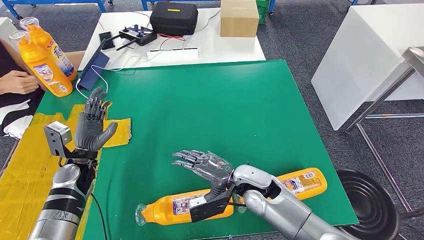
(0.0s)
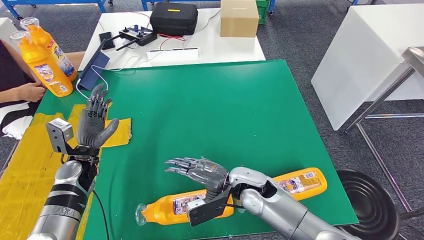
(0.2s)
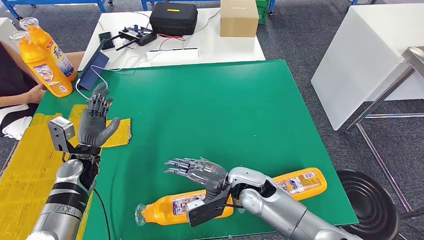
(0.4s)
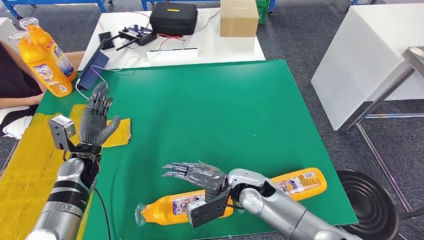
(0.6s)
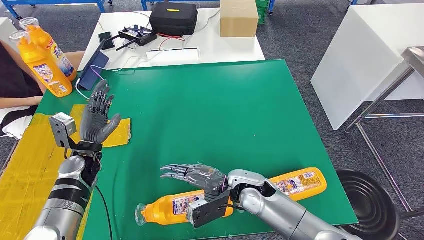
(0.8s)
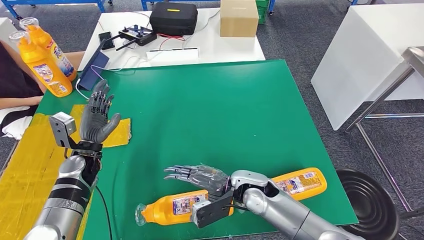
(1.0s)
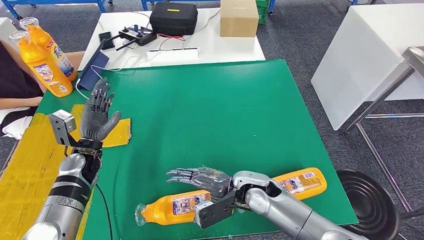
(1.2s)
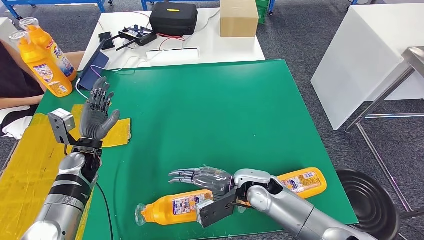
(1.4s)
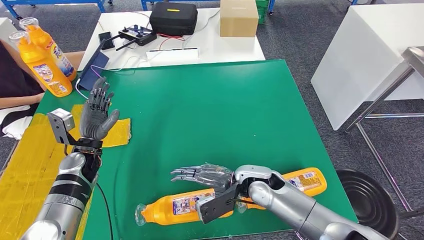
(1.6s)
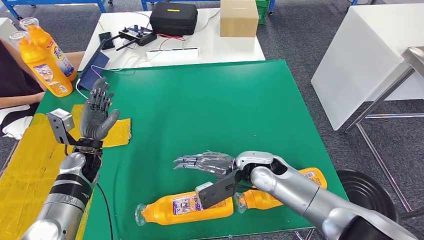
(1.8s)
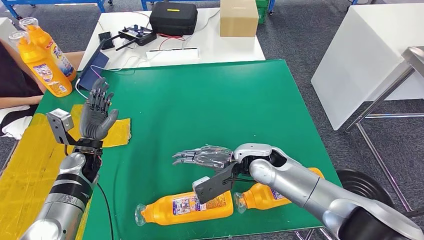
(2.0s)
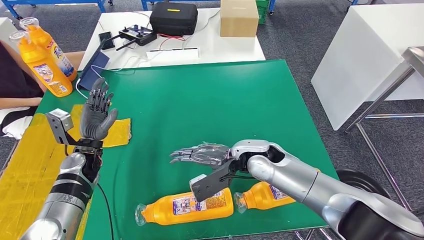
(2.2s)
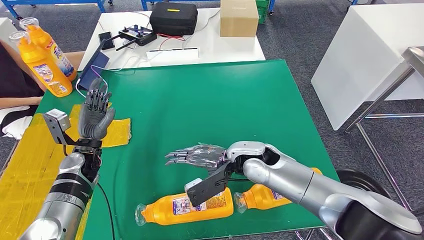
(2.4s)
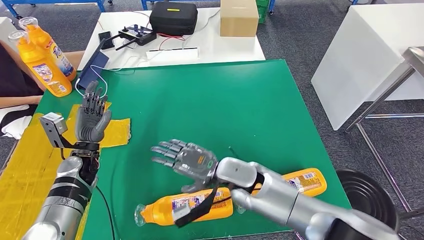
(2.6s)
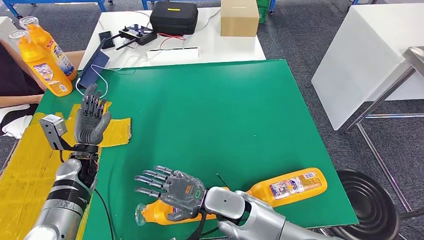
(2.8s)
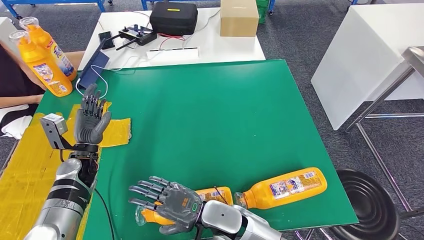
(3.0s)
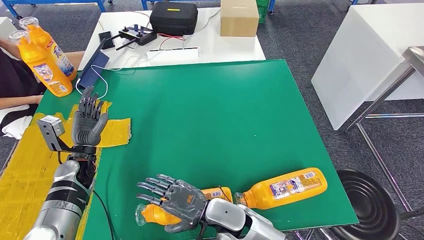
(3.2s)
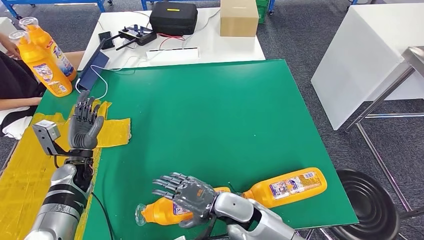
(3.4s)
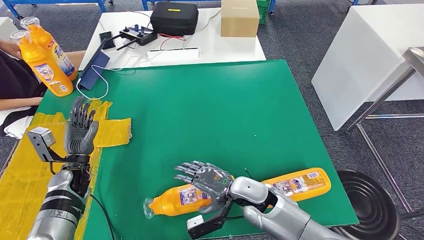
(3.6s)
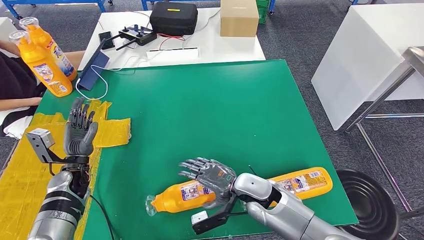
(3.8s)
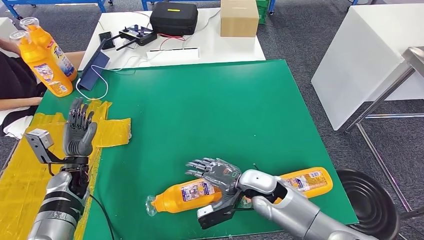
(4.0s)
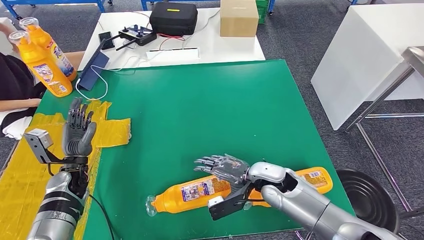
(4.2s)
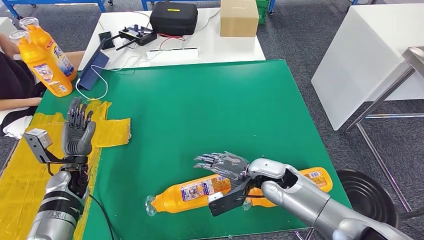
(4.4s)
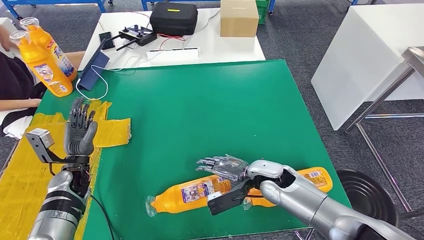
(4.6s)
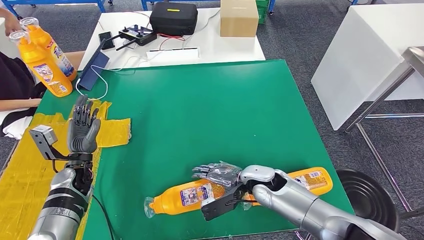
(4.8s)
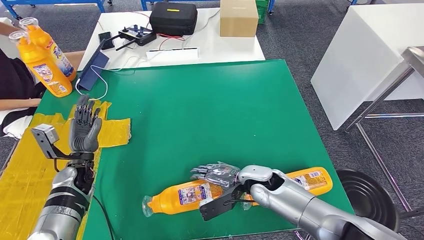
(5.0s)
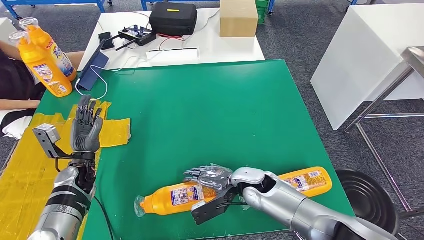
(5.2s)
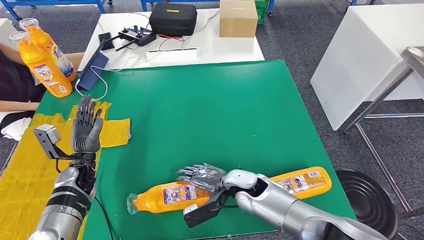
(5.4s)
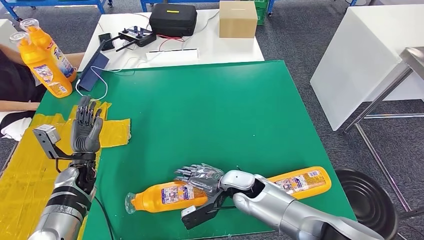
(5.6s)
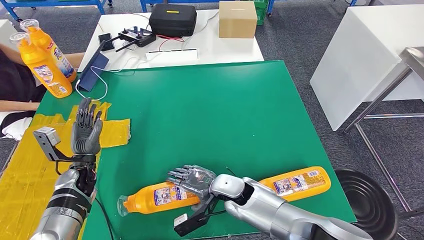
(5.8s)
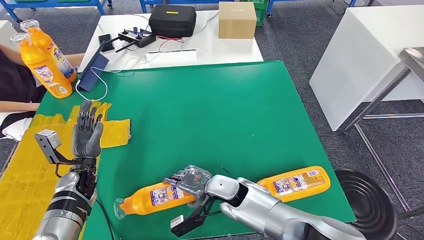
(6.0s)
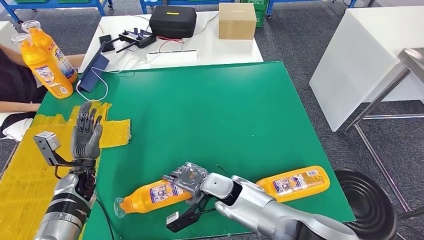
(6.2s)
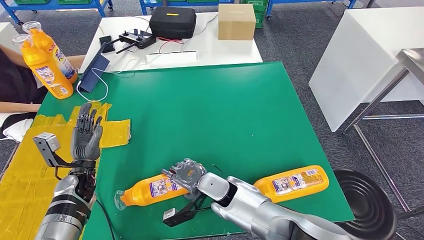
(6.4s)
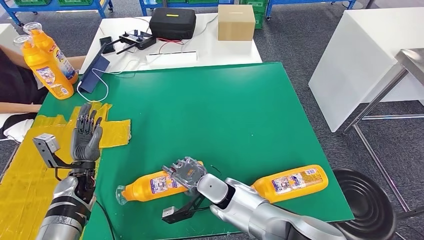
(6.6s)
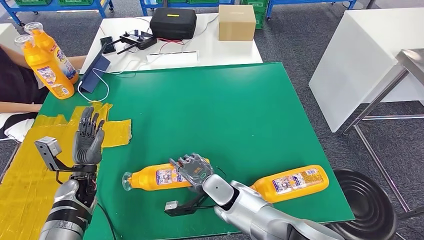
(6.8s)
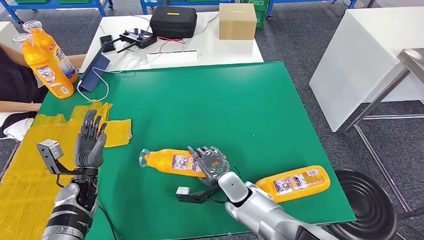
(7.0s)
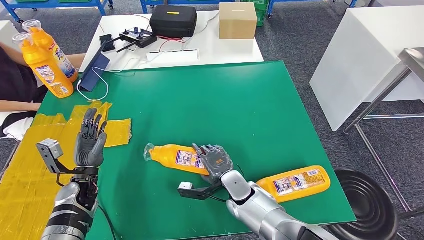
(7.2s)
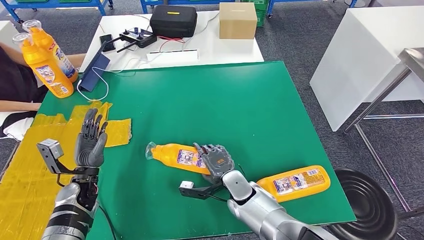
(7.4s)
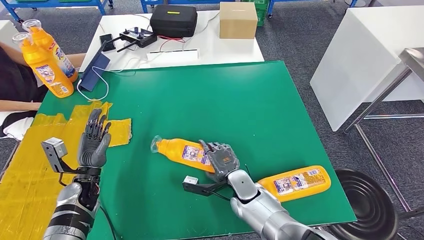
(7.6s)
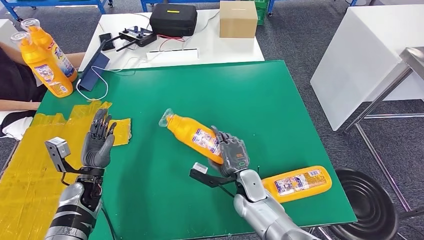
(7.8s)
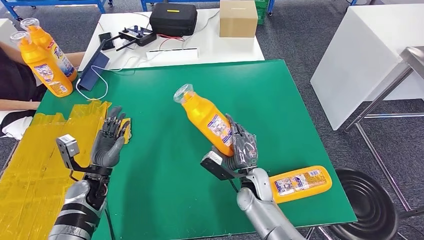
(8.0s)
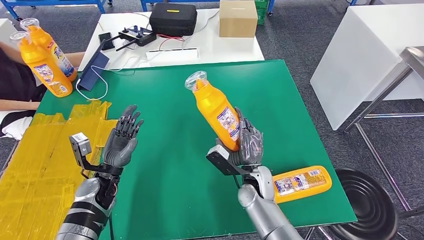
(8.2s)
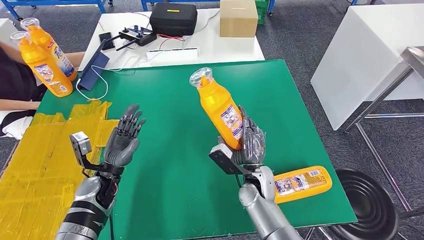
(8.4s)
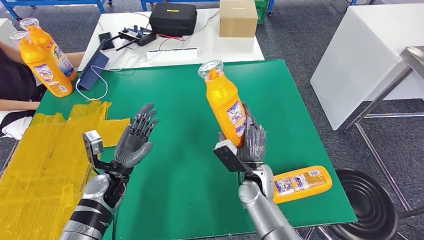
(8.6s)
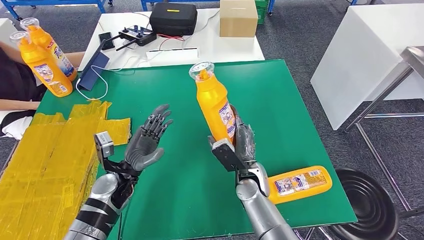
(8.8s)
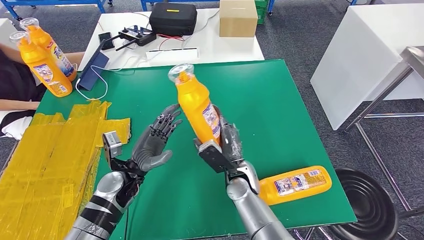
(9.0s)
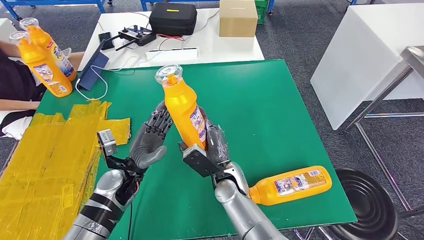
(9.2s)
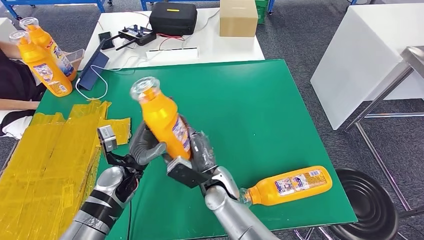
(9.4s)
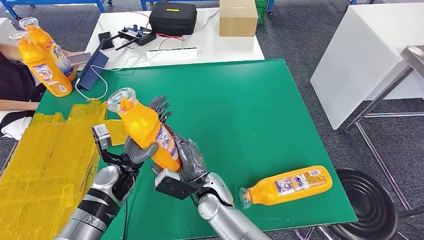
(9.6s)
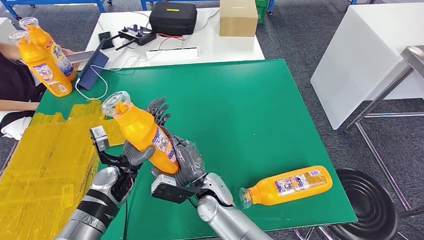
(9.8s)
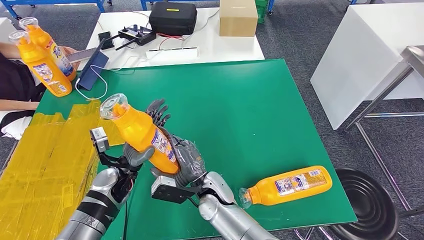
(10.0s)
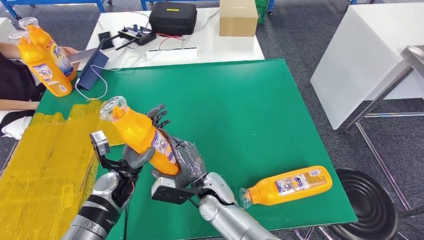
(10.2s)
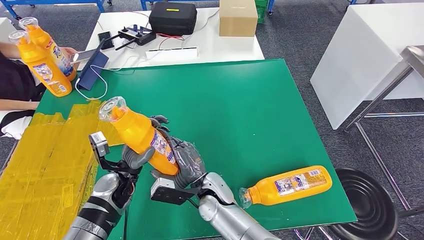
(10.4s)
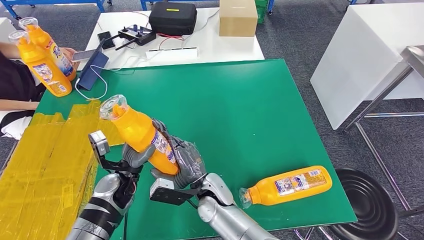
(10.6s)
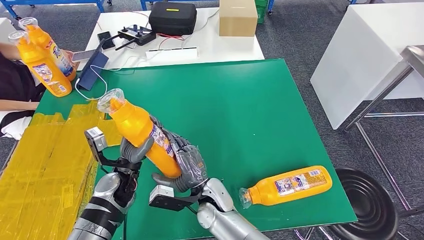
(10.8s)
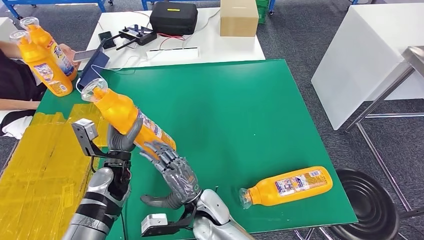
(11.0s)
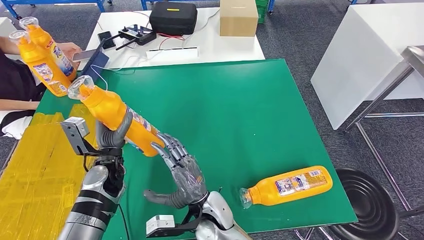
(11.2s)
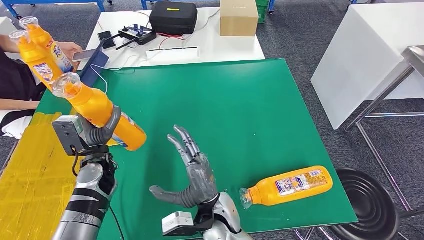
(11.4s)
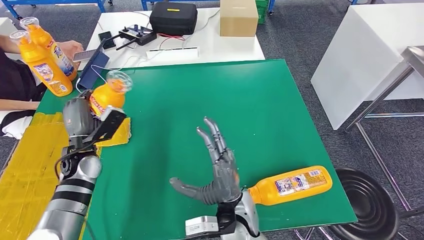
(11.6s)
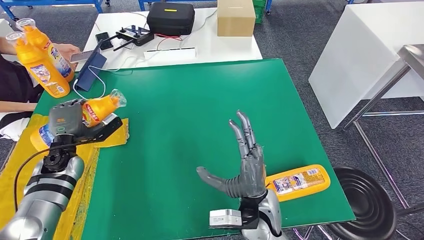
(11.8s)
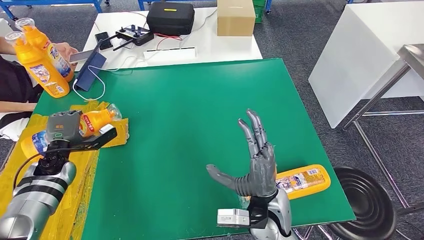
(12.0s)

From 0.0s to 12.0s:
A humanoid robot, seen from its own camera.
Step, from 3.0s to 9.0s: Pick up the fast-moving consumer goods bottle from the table.
From 1.6s to 3.0s: The right hand goes some 10 cm to the left and backward.
From 3.0s to 4.4s: The right hand goes roughly 15 cm to the right and forward.
From 6.0s to 7.6s: The right hand shifts by roughly 5 cm.
From 9.0s to 10.4s: The right hand is displaced to the left and backward by about 10 cm.

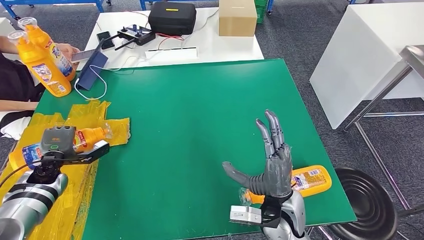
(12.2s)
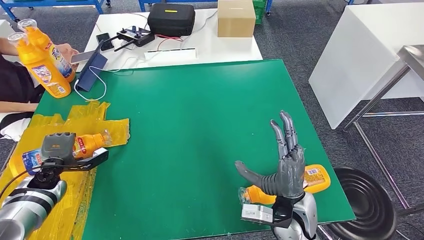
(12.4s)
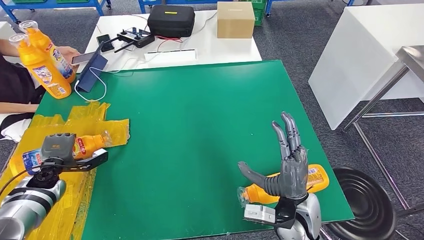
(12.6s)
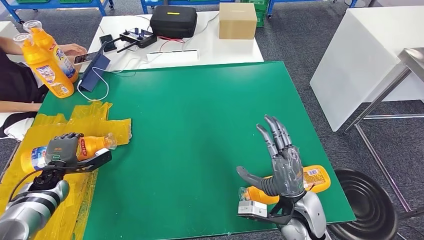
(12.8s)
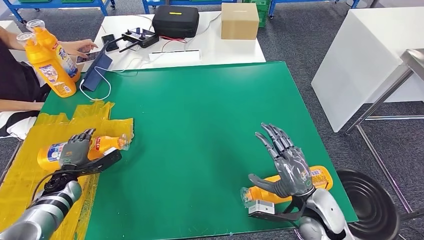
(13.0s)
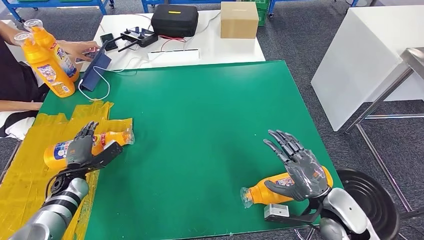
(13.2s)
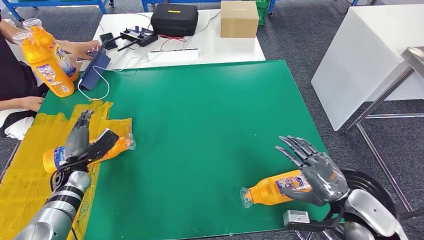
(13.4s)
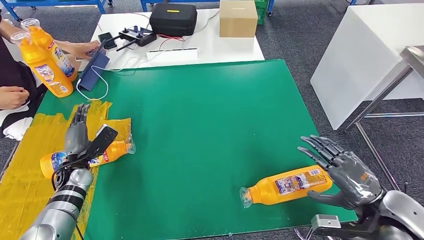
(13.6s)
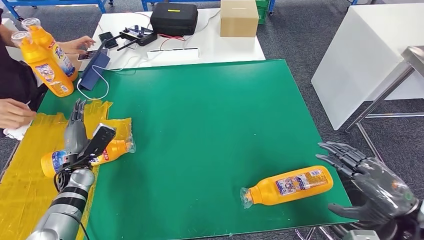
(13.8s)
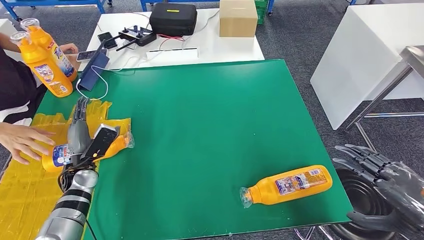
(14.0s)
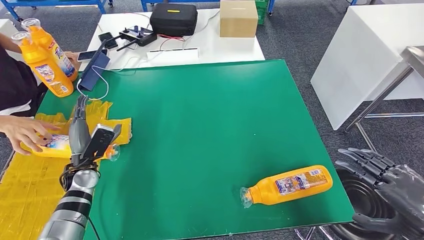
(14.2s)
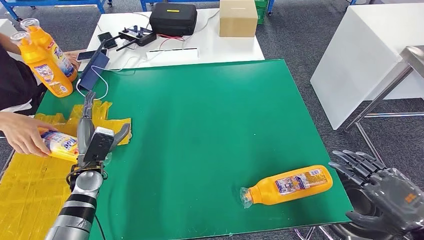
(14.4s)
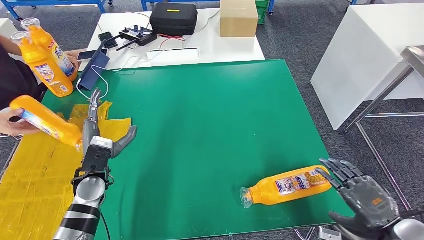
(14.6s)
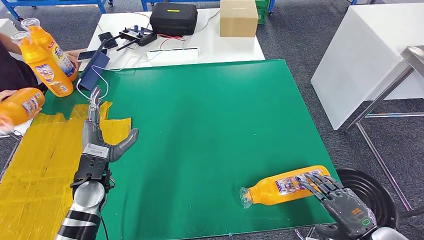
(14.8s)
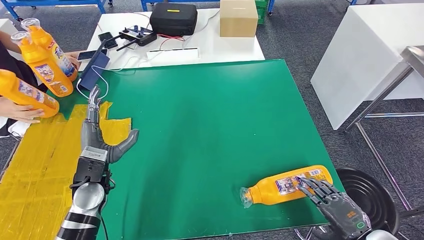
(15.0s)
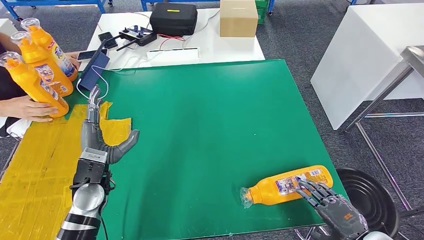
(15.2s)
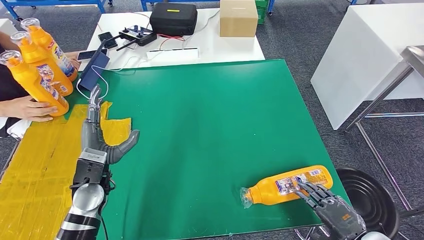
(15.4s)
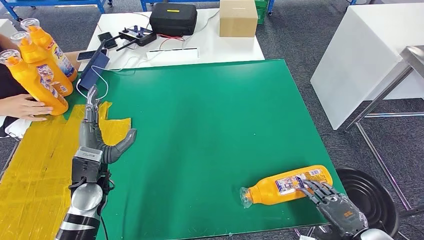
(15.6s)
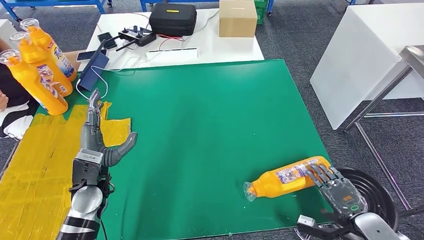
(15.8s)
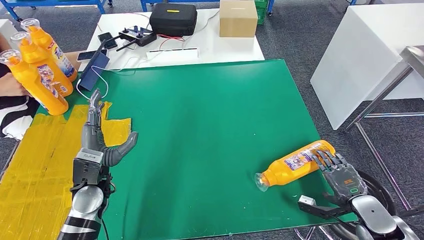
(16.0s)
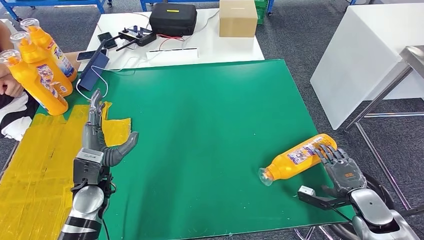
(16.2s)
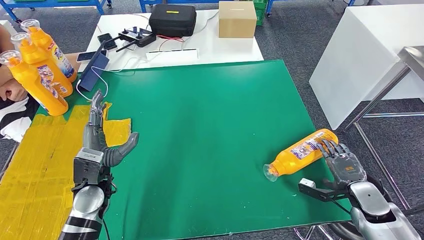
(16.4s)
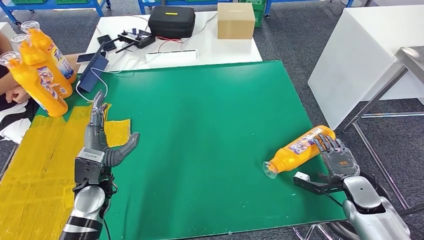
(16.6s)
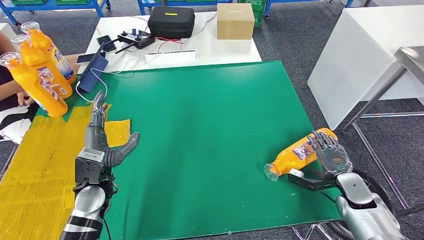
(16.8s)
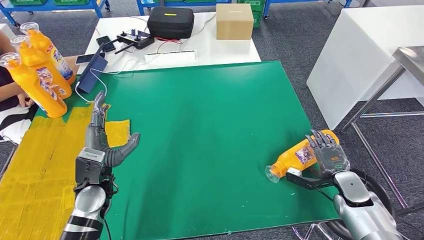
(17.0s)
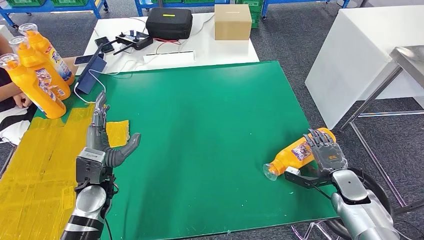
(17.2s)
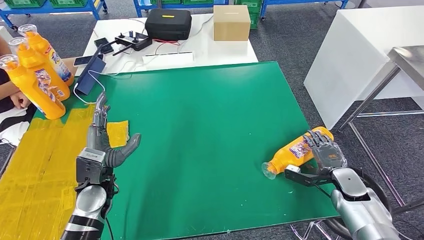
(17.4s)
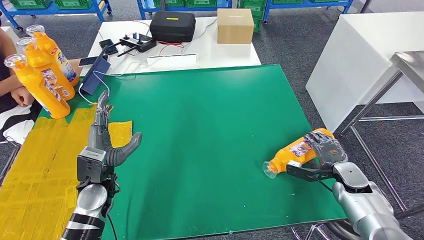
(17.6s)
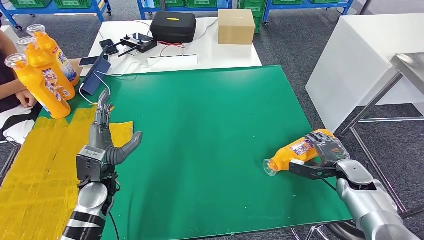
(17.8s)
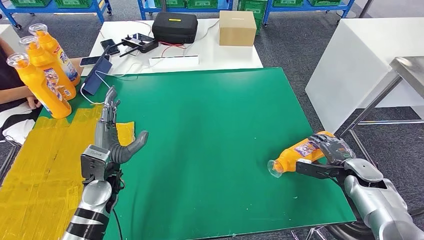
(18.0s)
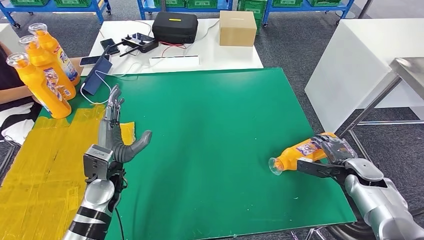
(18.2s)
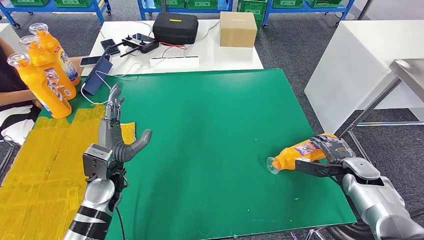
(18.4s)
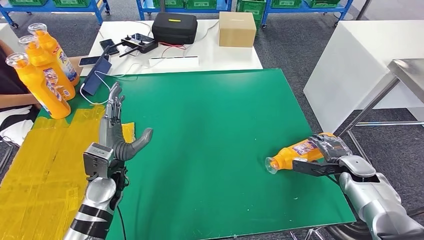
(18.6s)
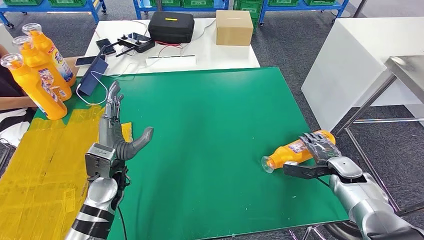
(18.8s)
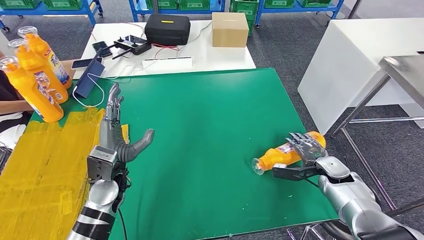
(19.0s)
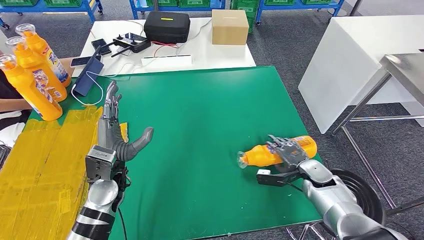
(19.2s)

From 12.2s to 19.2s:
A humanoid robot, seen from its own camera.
From 13.6s to 15.0s: The right hand moves downward and backward, about 10 cm. Meanwhile the left hand travels to the right, upward and backward by roughly 15 cm.
